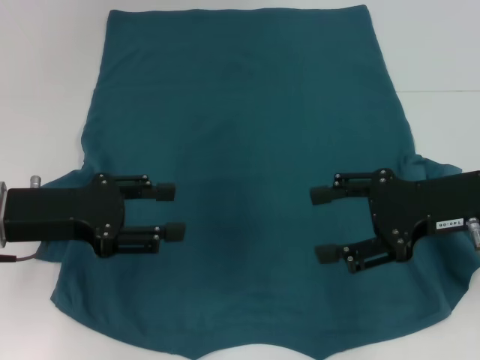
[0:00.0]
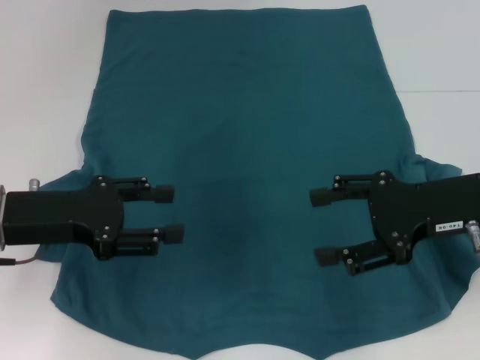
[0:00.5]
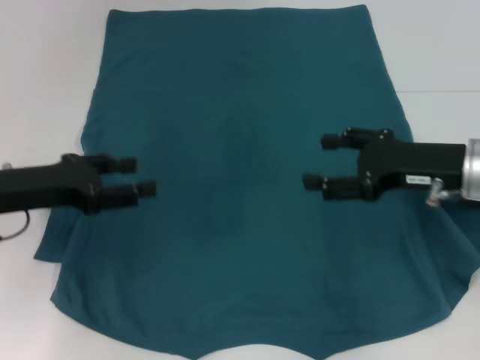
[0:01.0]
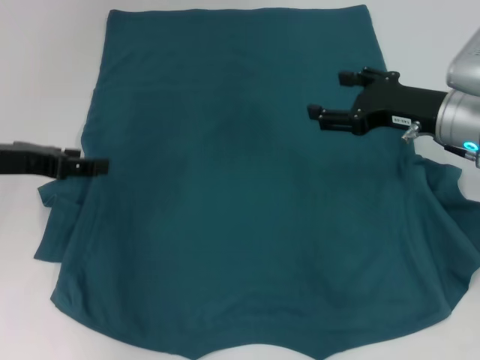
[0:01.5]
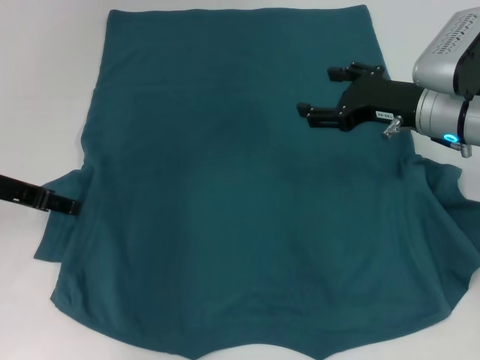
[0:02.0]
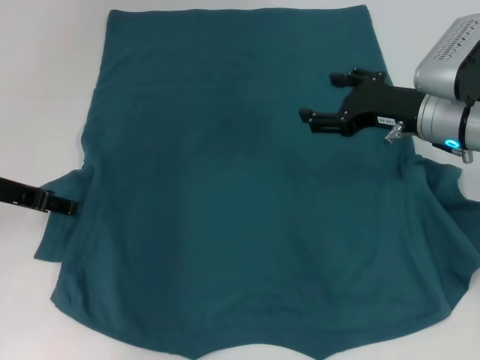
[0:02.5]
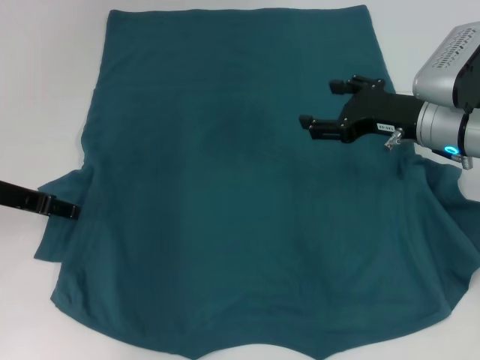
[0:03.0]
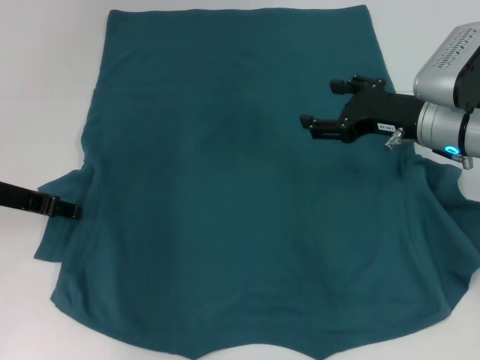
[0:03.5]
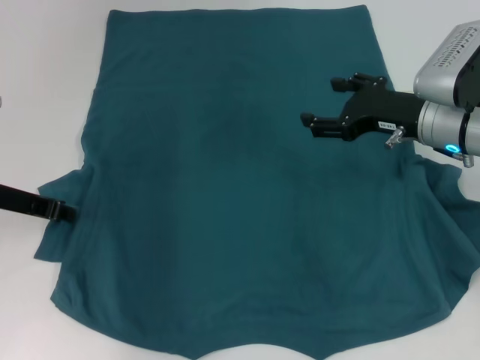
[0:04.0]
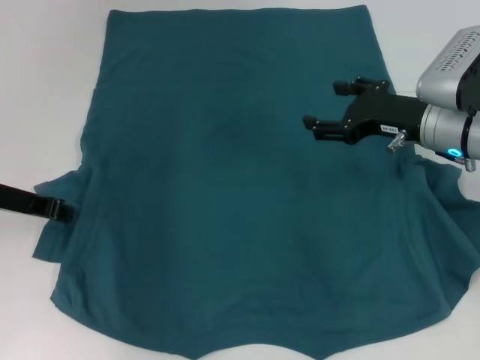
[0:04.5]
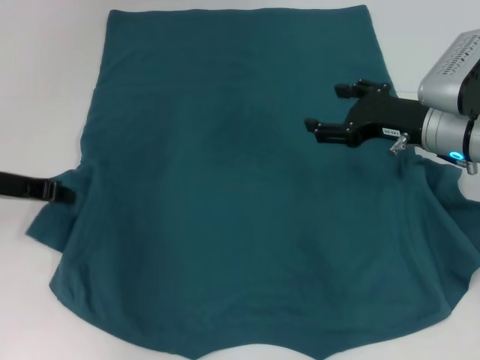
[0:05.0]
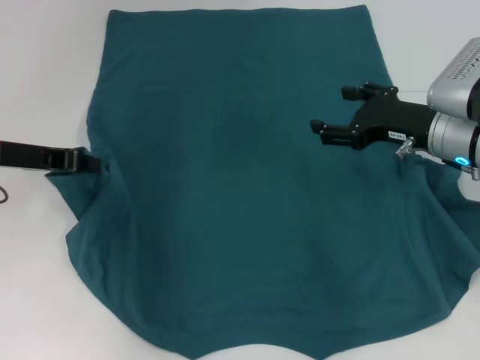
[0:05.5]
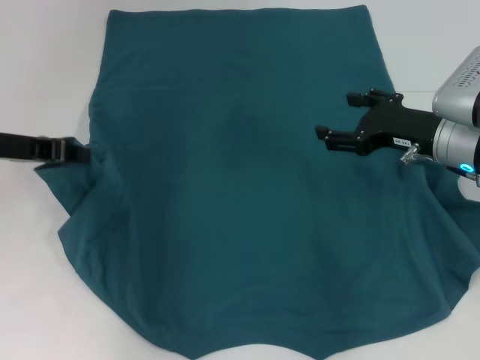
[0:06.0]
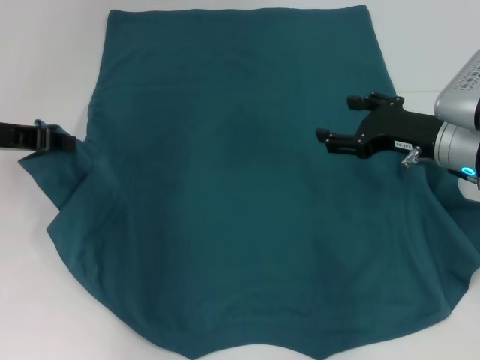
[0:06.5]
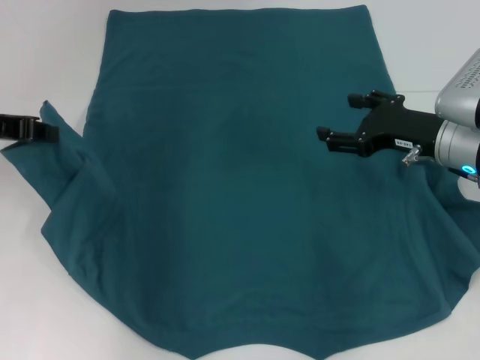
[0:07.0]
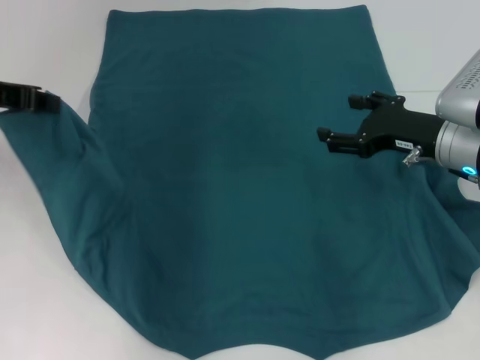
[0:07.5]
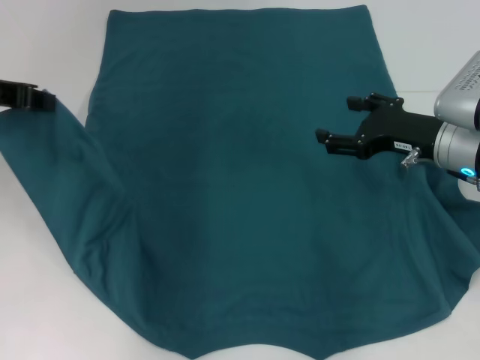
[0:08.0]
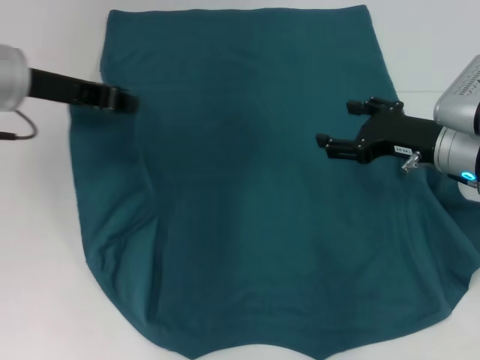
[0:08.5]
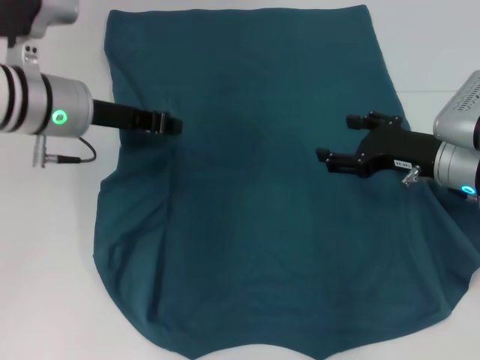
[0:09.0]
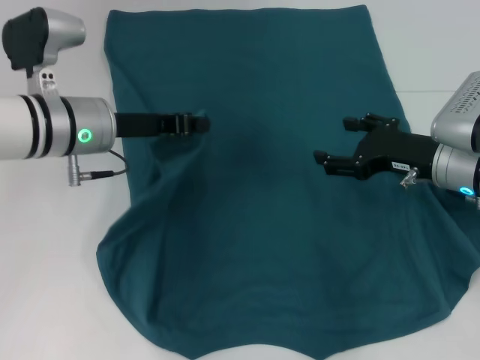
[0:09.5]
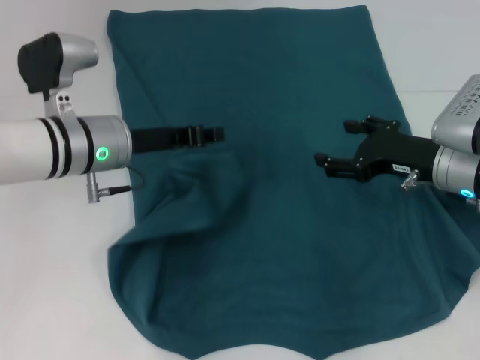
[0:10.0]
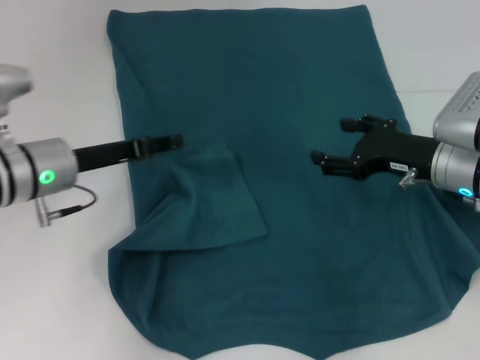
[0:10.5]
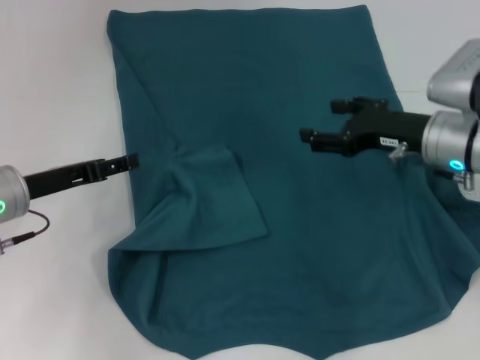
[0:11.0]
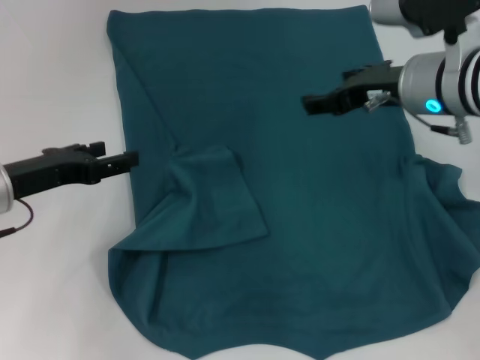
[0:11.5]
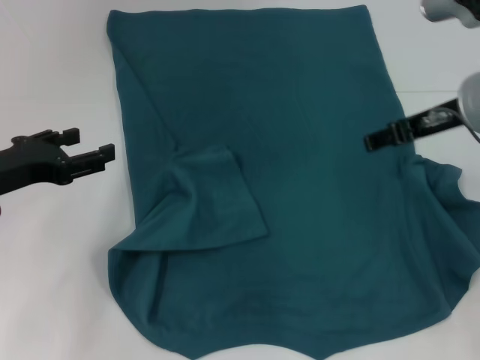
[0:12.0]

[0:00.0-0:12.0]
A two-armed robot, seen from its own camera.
Step, 0:00.0 to 0:10.0: Fold the bottom left sleeve with your left hand.
0:00.0 to 0:02.0: The left gripper is displaced forward by roughly 5 cm. The right gripper travels forward by approximately 10 cm.
0:02.0 to 0:04.0: The left gripper closes its fingers.
0:04.0 to 0:06.0: The left gripper closes.
0:06.0 to 0:08.0: The left gripper heads upward, covering roughly 5 cm.
0:08.0 to 0:10.0: The left gripper is displaced to the right and downward by some 15 cm.
0:10.0 to 0:12.0: The left gripper travels to the left and backward by some 15 cm, and opens up, while the right gripper moves upward, about 15 cm.

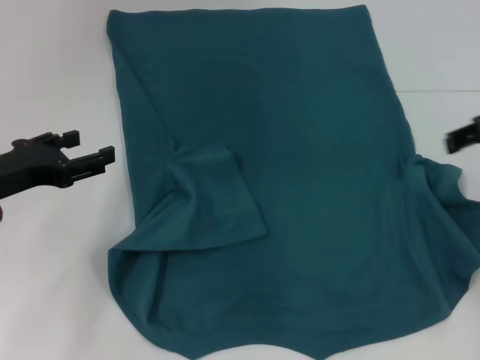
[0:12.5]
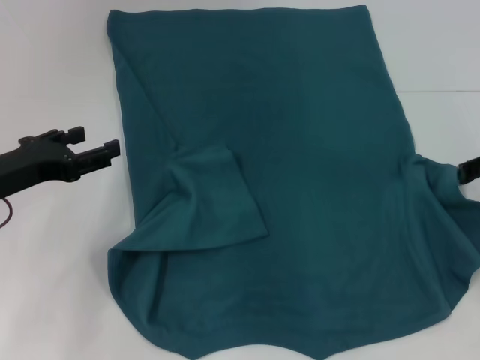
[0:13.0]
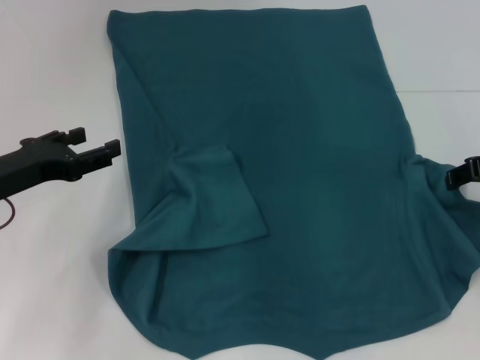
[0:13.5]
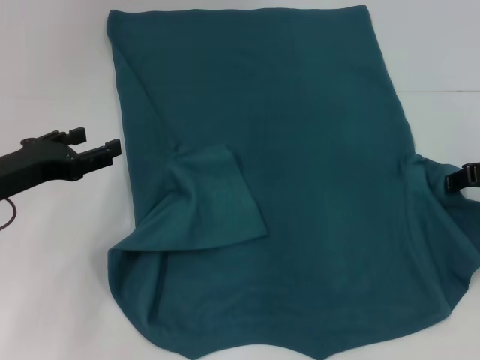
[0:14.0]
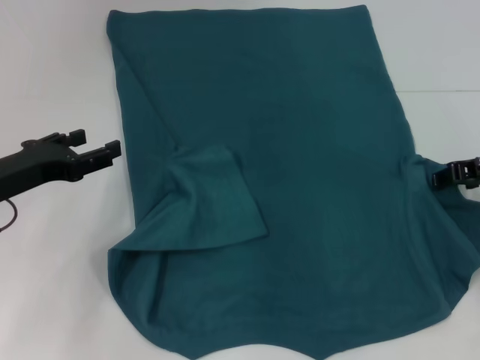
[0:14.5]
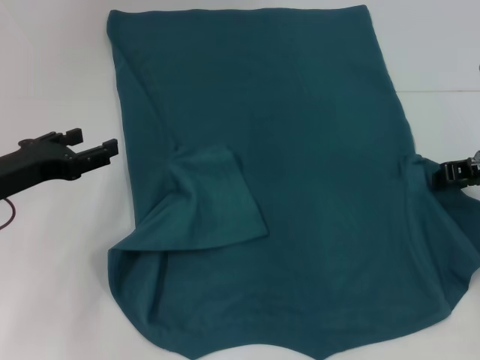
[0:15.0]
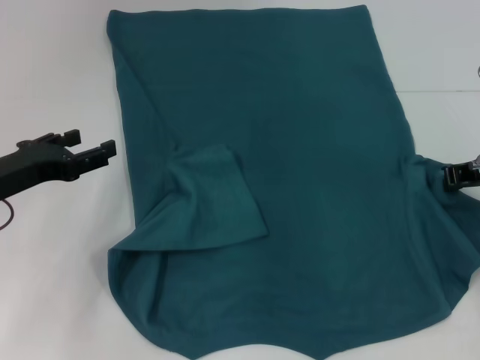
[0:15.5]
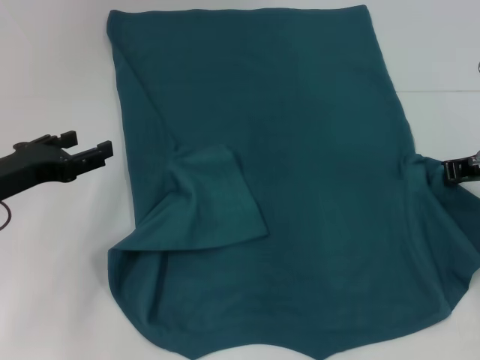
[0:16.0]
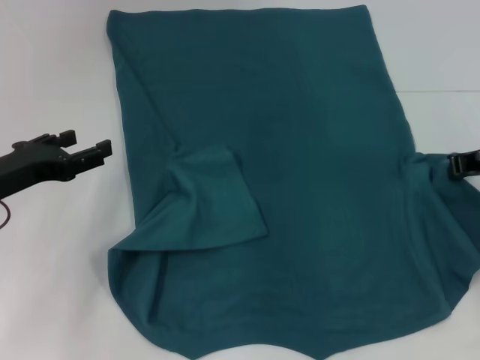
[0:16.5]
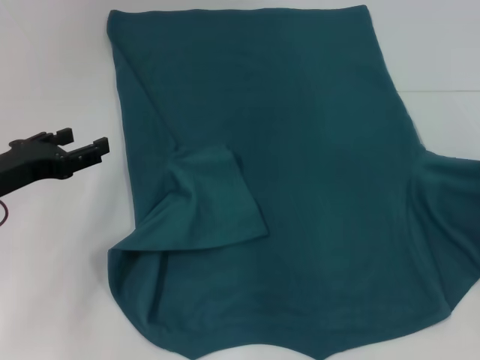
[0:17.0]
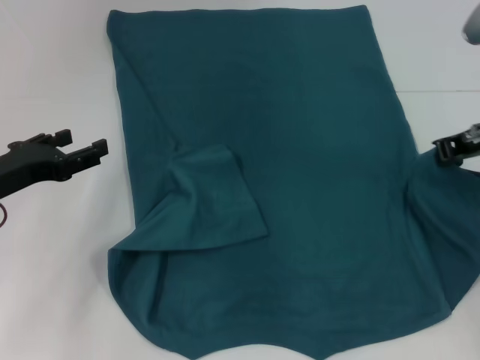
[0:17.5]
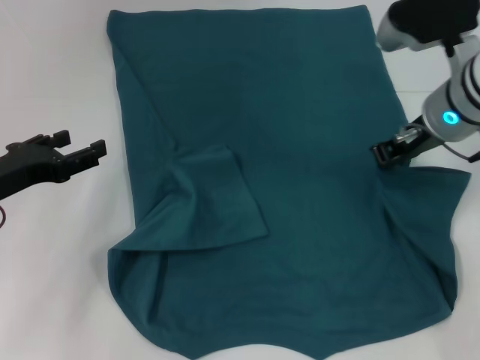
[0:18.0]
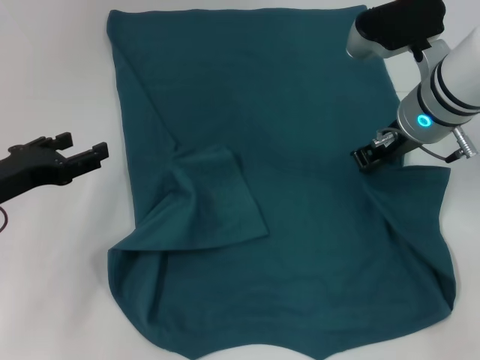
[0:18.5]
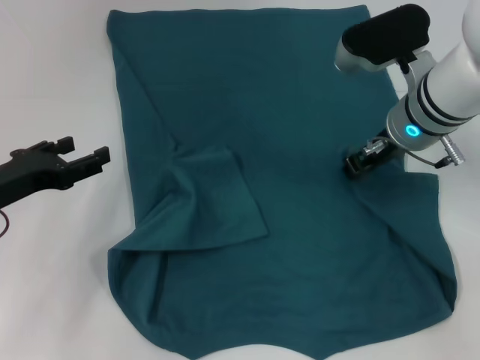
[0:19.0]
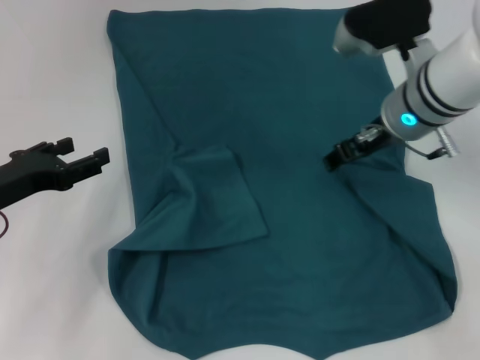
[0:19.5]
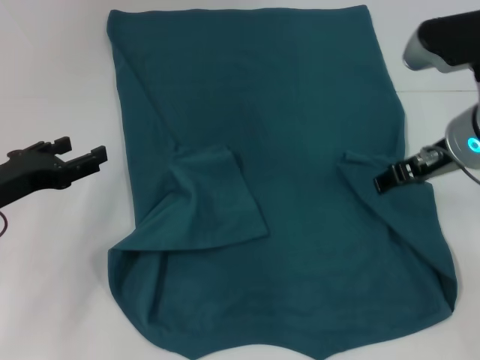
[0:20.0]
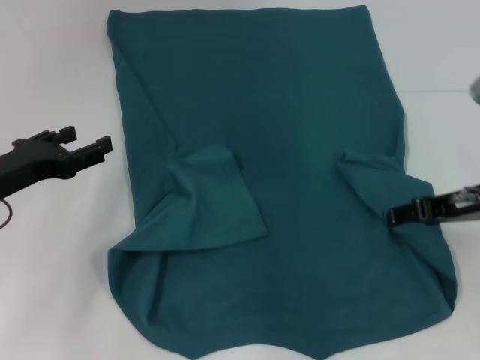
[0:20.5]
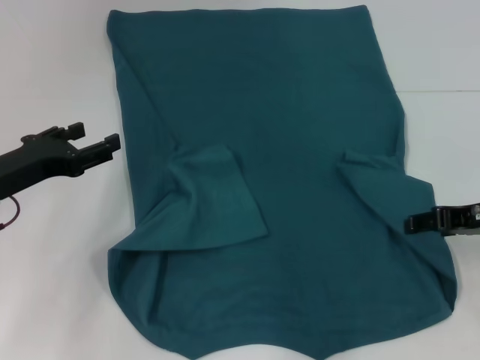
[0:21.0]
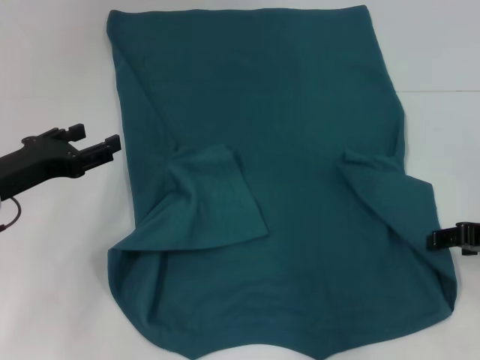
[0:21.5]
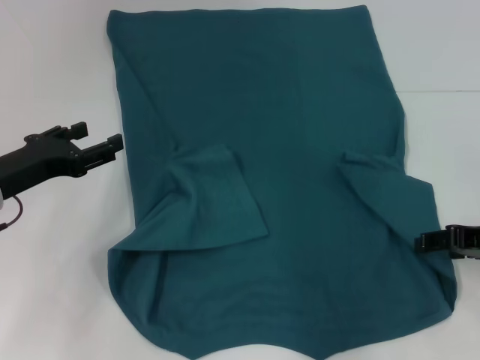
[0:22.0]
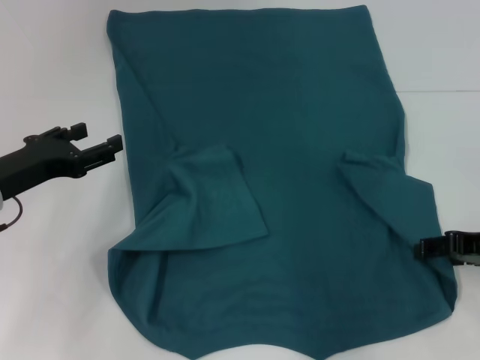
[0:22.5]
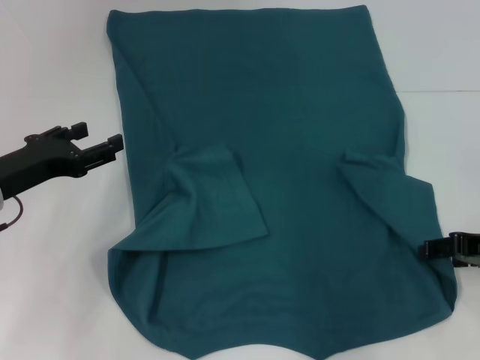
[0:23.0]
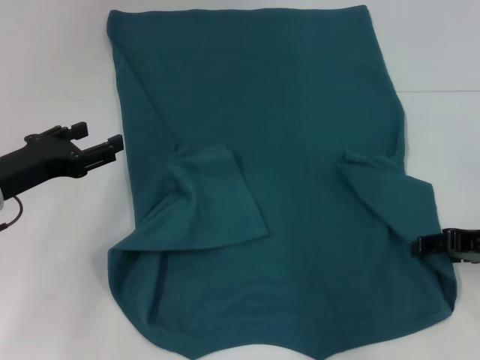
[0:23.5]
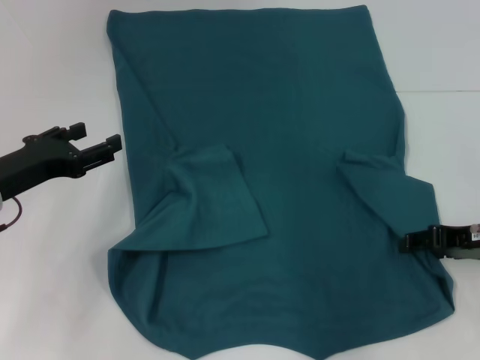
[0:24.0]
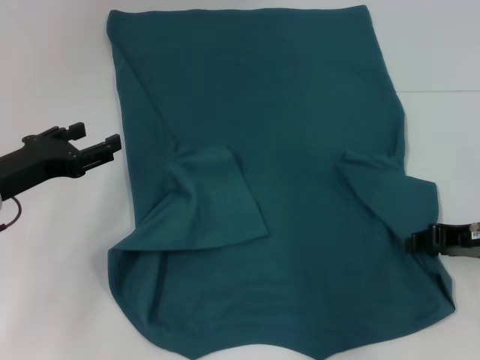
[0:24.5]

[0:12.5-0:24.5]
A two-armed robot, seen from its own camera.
0:12.5 to 0:14.5: The right gripper is displaced downward by approximately 10 cm.
0:14.5 to 0:16.5: The right gripper closes its fingers.
0:16.5 to 0:18.5: The right gripper goes about 10 cm to the left.
0:18.5 to 0:20.5: The right gripper shifts roughly 10 cm backward and to the right, and opens its fingers.
0:20.5 to 0:22.5: The right gripper ends up roughly 5 cm from where it was.
0:22.5 to 0:24.5: The grippers move only a little.

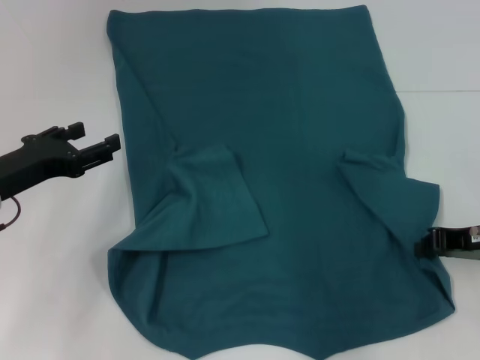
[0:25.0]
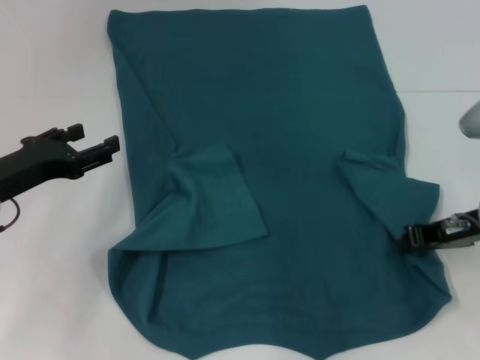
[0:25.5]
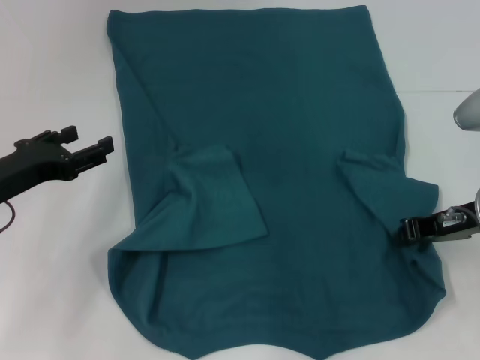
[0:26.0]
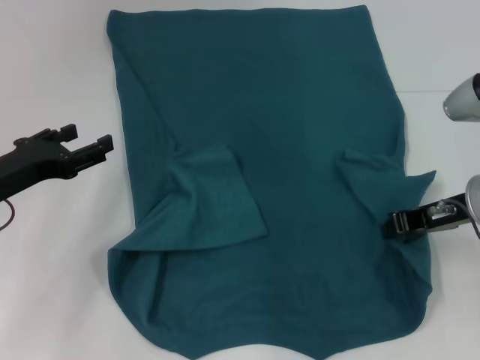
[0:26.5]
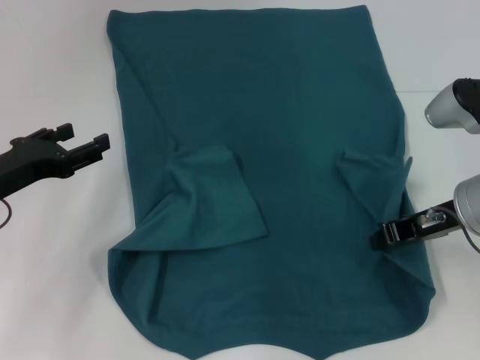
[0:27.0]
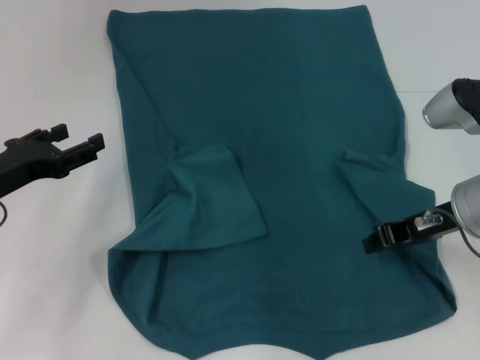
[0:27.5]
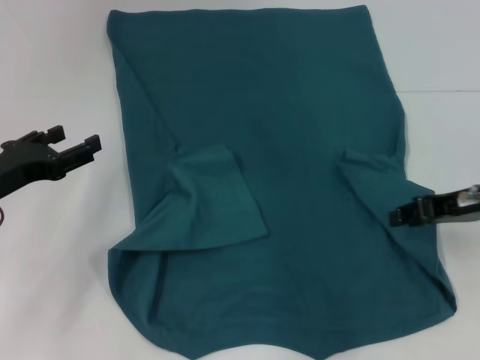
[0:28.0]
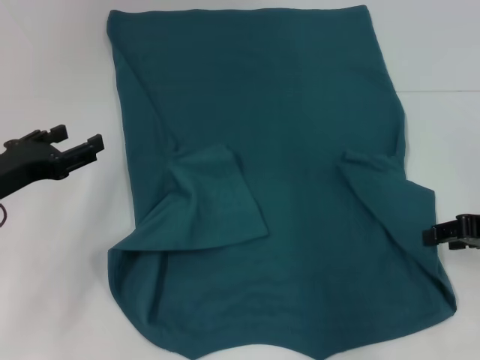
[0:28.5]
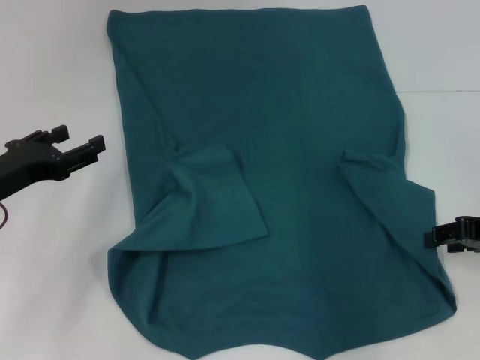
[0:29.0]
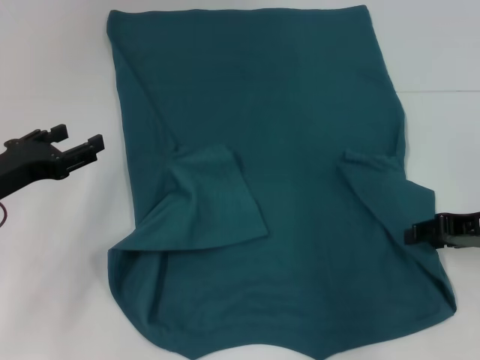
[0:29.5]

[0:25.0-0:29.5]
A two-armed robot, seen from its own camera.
0:25.0 to 0:27.0: The right gripper moves to the left, about 5 cm.
0:27.0 to 0:29.5: The right gripper moves to the right, roughly 5 cm, and opens its fingers.
